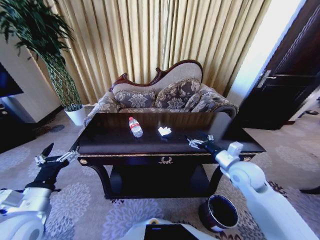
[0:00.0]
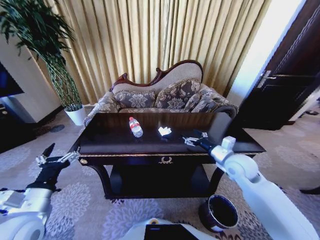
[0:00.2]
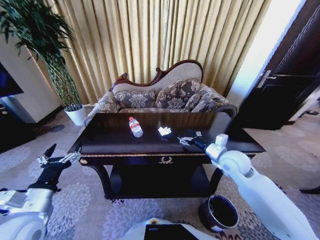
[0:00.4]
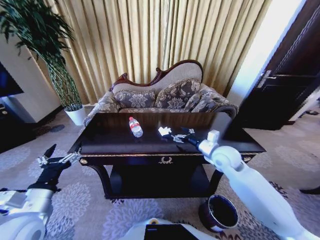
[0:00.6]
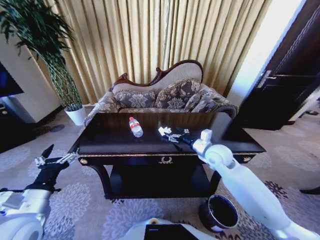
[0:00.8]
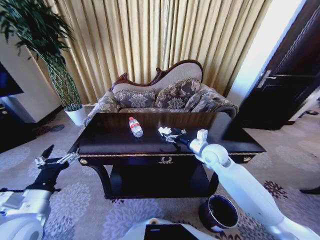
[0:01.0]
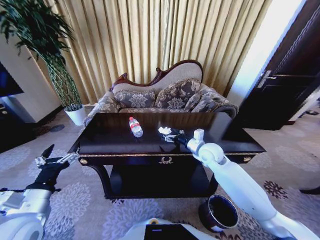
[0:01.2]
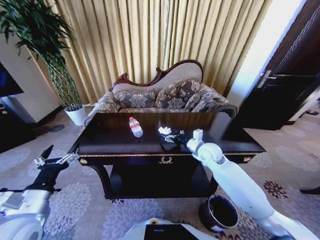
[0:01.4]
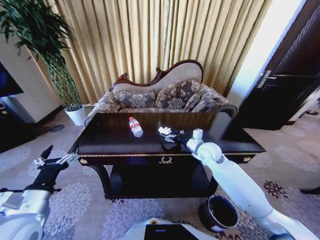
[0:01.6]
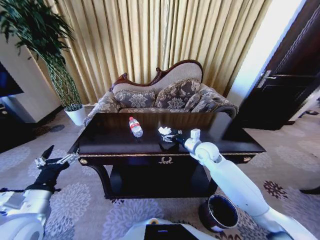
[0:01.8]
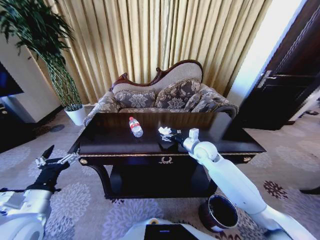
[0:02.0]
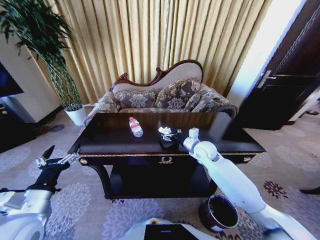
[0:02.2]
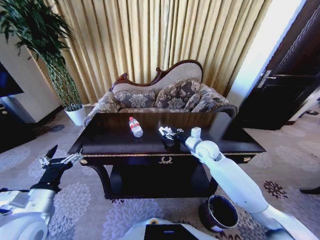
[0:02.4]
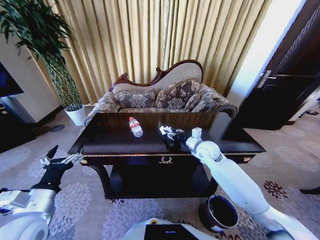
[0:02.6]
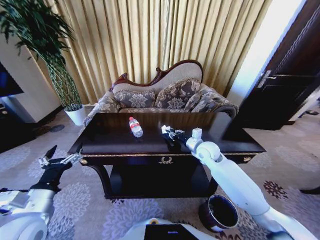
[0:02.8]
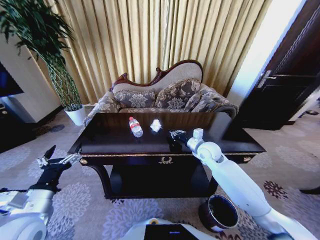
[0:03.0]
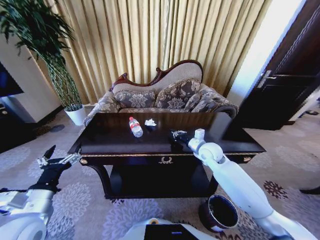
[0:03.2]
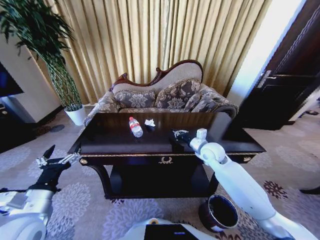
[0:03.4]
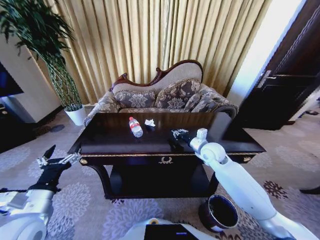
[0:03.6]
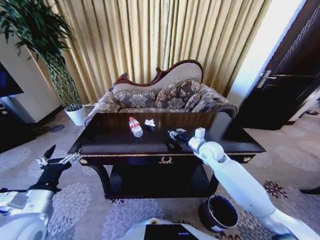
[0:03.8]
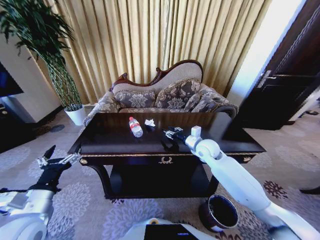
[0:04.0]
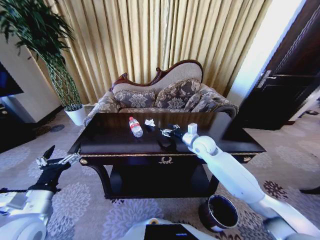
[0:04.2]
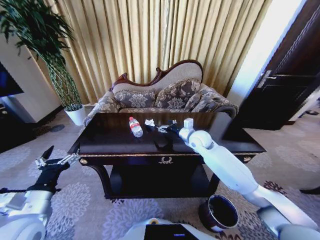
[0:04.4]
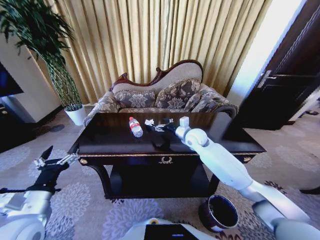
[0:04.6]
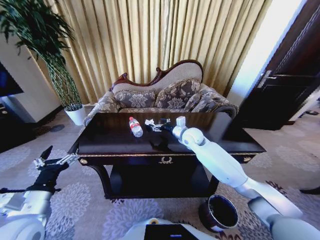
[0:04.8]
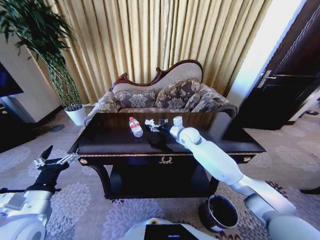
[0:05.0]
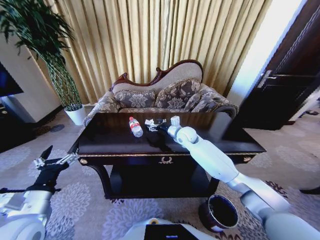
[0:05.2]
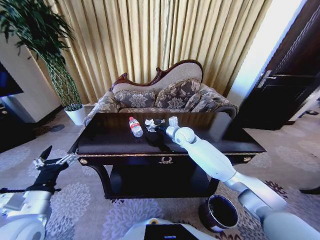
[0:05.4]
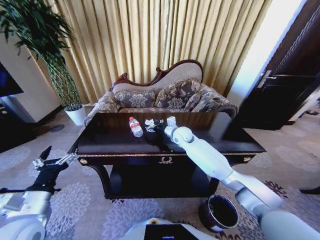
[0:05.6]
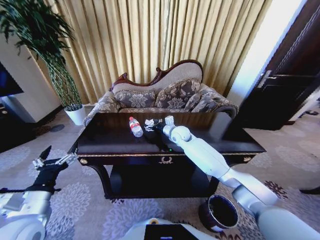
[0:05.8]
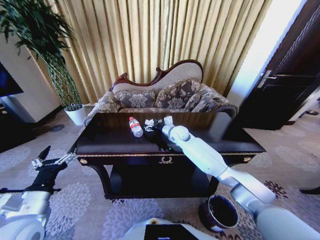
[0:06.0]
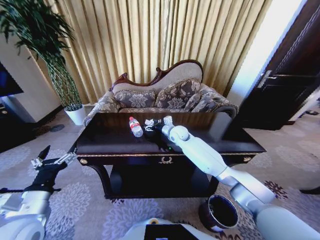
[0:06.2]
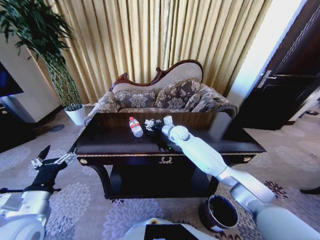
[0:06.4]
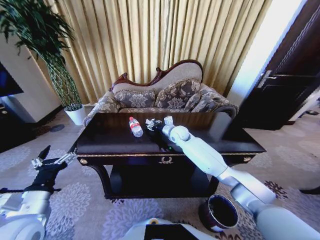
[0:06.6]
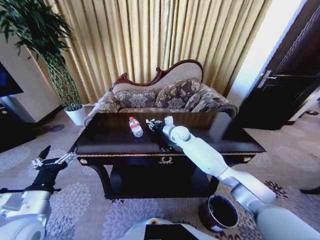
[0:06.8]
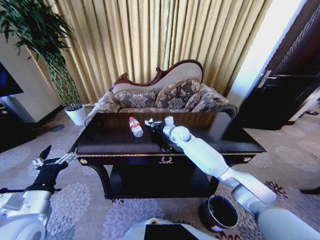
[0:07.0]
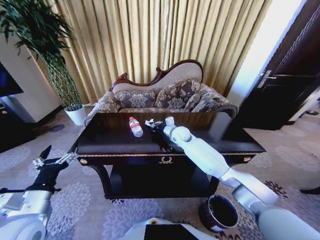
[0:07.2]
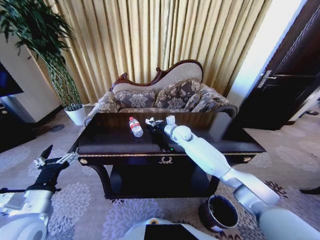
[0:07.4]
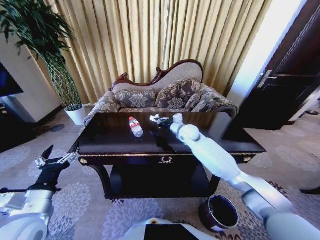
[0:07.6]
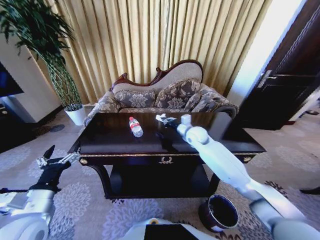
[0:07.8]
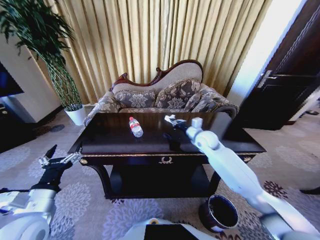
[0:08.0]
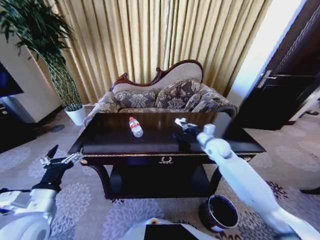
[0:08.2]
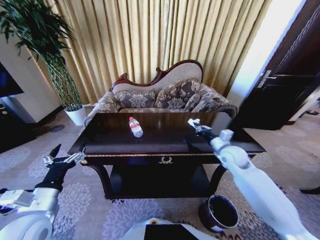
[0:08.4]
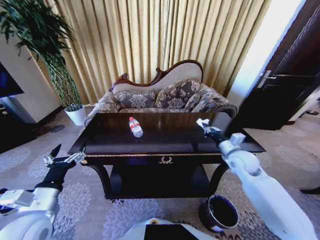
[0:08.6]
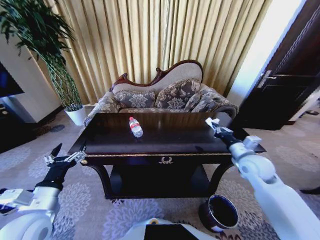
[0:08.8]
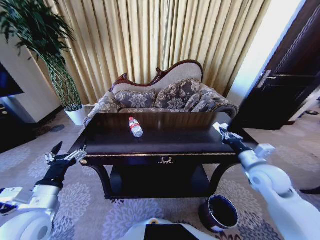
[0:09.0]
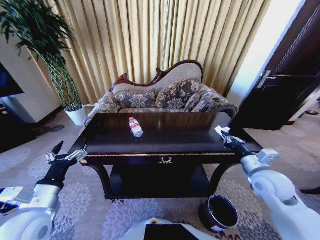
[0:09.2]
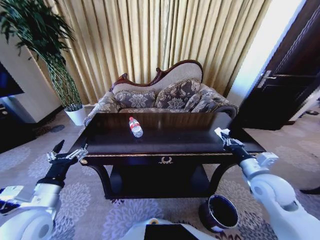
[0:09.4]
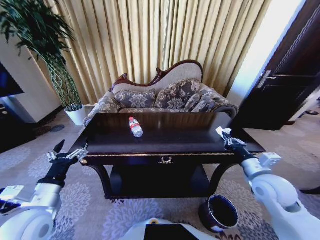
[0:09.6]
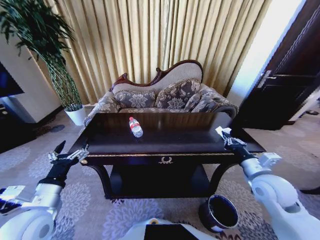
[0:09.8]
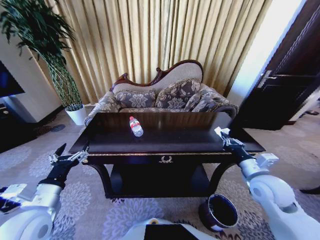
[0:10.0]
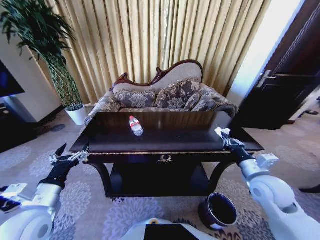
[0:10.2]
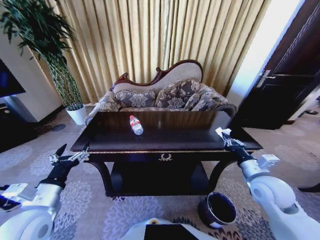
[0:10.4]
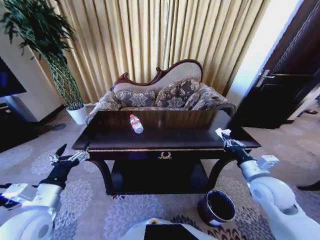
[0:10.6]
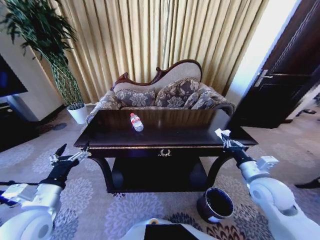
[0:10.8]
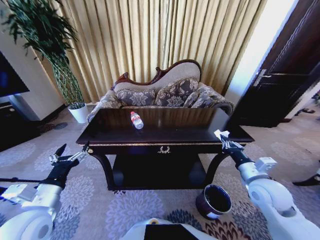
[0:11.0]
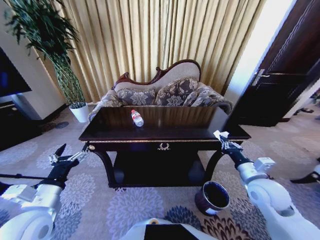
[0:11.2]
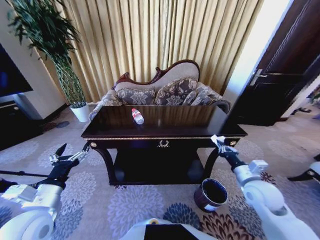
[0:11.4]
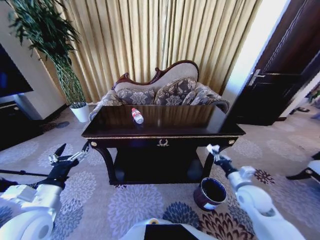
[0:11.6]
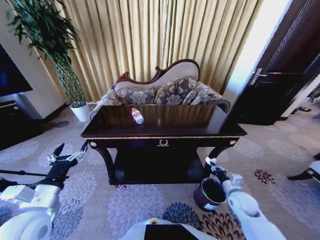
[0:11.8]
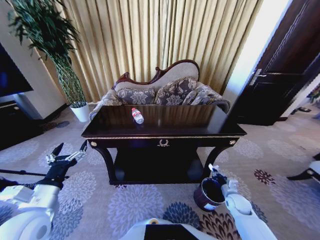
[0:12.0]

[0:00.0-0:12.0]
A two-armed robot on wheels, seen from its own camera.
Task of the whole recording: Move to the front of the table and place the trash on the table into the trash bin.
0:00.0 to 0:01.6: The right gripper goes about 15 cm forward and to the left.
0:01.6 to 0:03.0: The right gripper closes up.
0:03.0 to 0:04.4: The right gripper goes about 5 cm forward, and opens up.
0:04.4 to 0:06.0: The right gripper shifts some 10 cm to the left and forward.
0:06.0 to 0:07.6: The right gripper closes its fingers.
0:07.6 to 0:09.0: The right gripper is displaced backward and to the right by approximately 30 cm.
0:09.0 to 0:10.4: There are only small adjustments of the grippers.
0:10.4 to 0:12.0: The right gripper moves downward, approximately 25 cm.

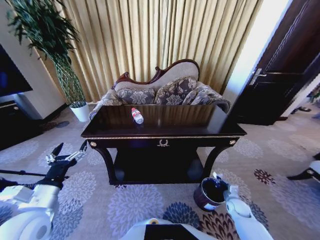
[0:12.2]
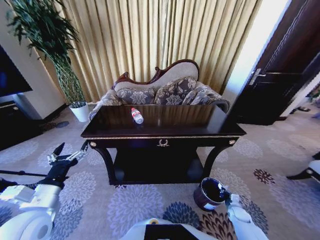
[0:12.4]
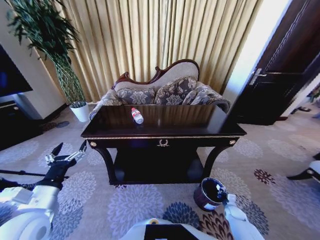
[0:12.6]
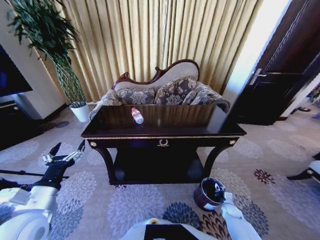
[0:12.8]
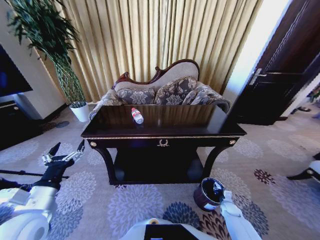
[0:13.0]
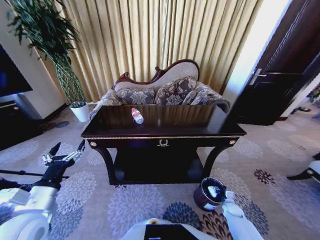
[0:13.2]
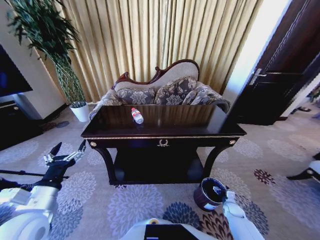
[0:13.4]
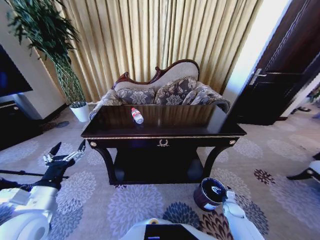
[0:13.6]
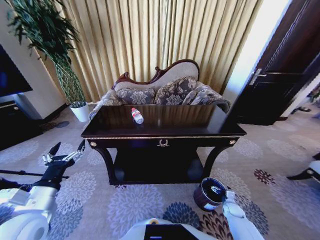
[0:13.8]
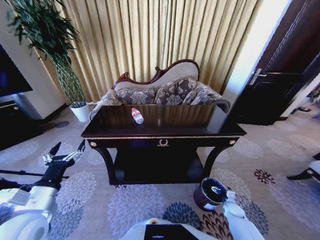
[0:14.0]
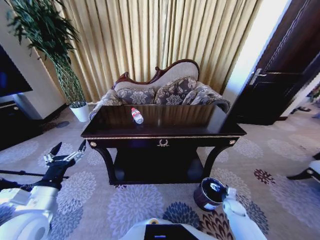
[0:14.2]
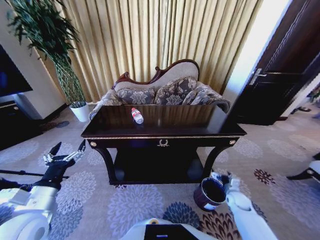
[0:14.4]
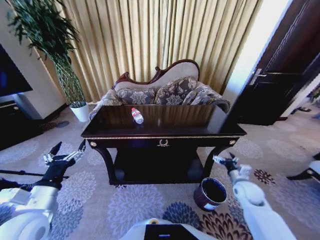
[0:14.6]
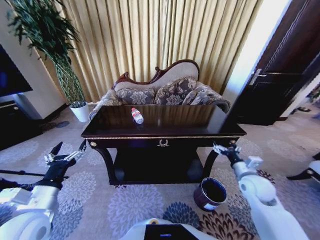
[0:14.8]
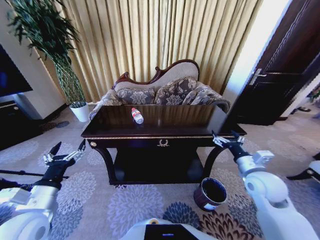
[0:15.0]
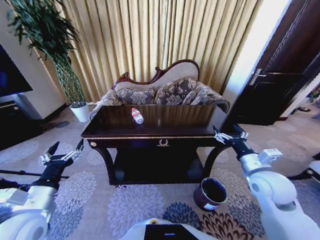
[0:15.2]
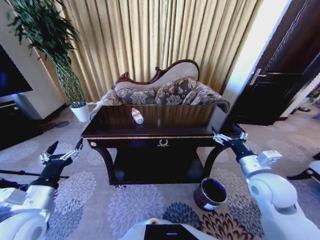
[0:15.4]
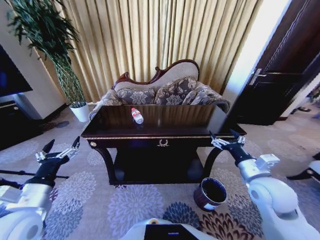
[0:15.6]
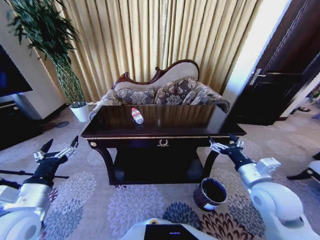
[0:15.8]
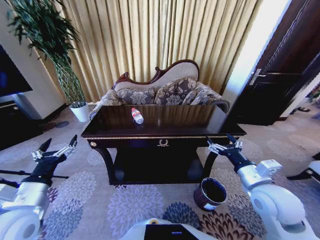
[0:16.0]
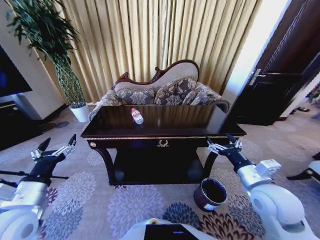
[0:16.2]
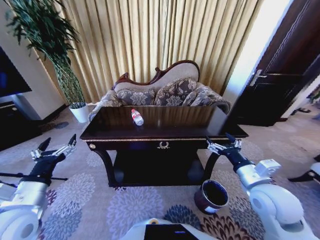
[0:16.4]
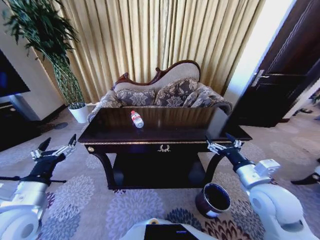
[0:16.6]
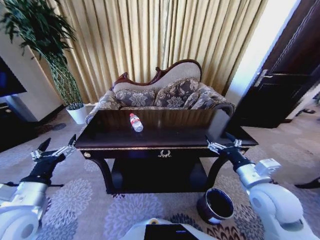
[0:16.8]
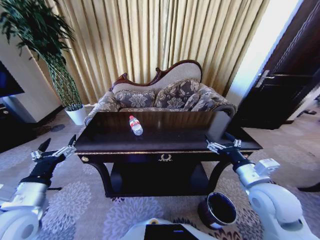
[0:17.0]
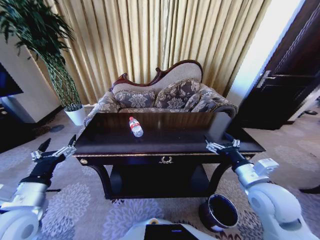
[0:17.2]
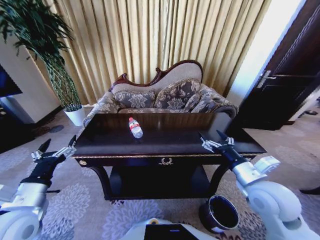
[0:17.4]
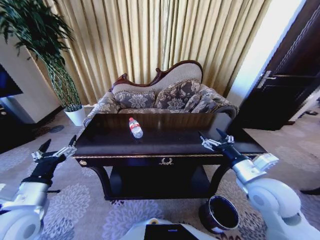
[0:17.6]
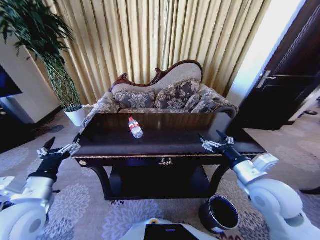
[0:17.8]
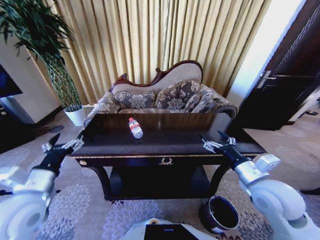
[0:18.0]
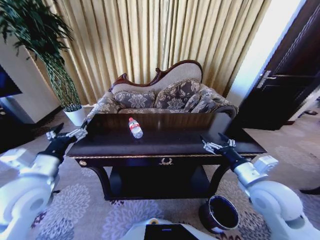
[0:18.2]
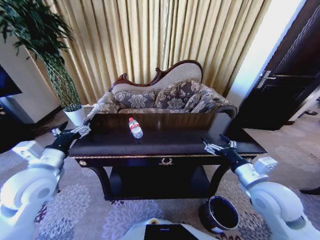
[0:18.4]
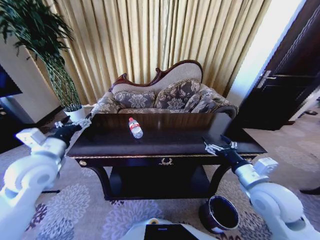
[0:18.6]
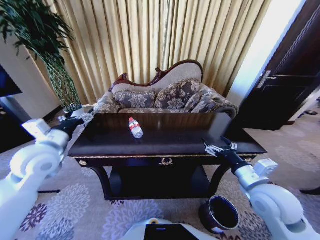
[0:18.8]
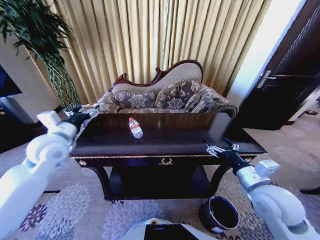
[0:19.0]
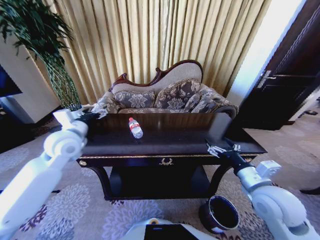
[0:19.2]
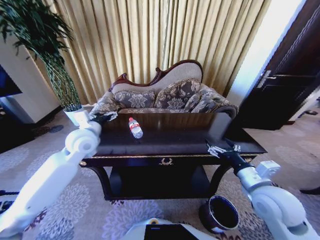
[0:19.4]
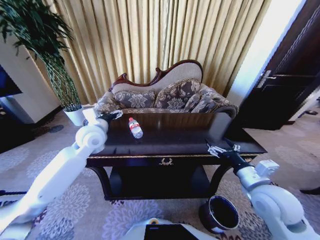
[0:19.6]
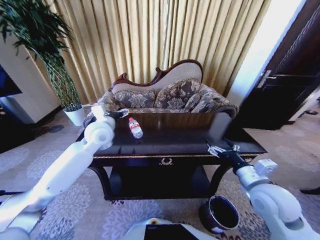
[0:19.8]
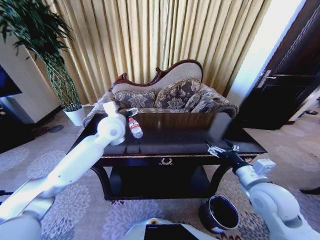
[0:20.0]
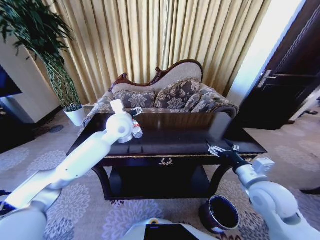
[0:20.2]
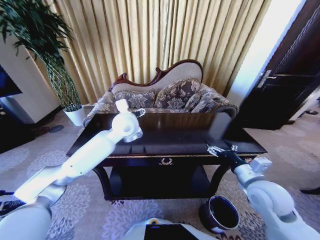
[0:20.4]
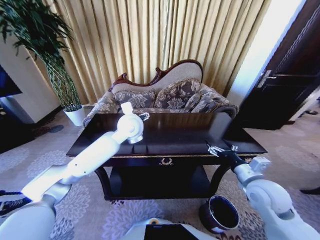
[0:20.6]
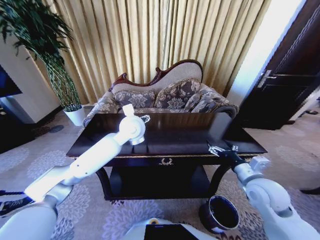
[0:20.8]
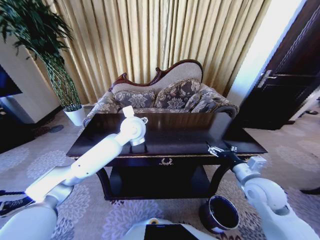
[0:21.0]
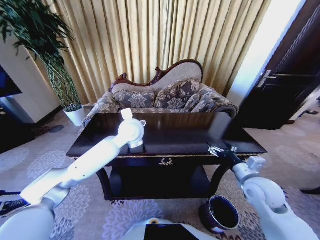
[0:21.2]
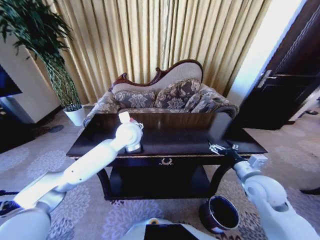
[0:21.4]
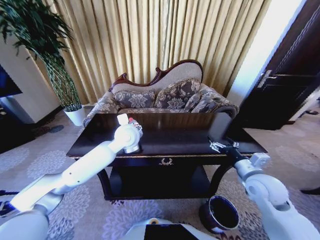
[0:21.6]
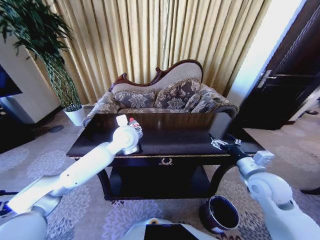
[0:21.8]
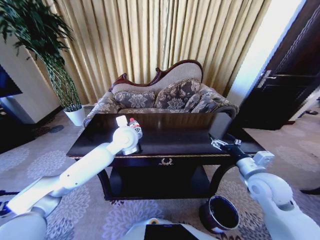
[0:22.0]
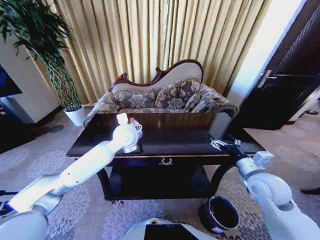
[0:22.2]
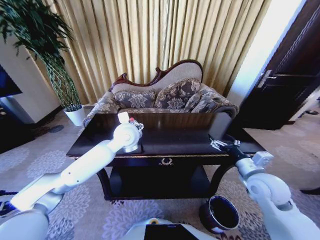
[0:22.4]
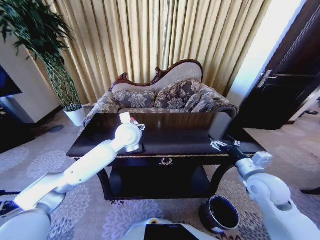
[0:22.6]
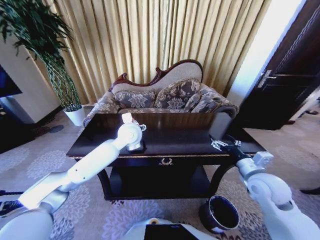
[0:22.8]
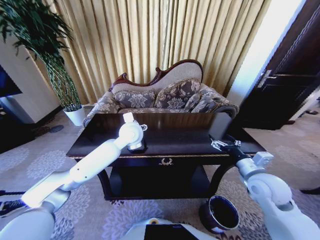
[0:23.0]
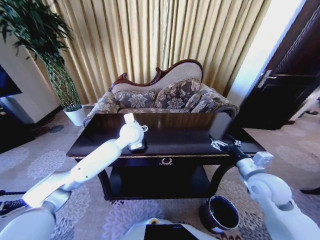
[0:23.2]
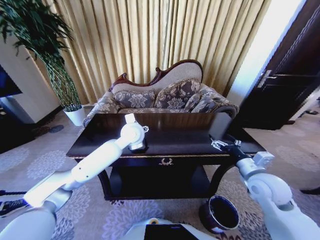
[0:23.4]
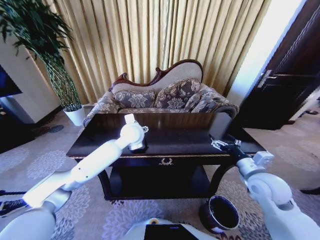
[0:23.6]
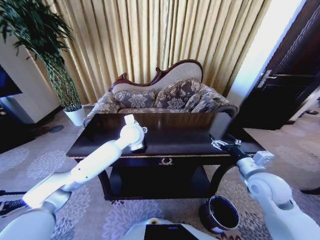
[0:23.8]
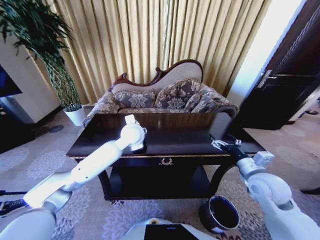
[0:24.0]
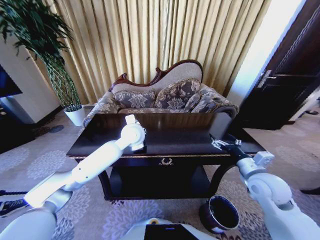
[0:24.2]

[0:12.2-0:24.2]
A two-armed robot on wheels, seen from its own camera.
Task of the whole recording: Move to the front of the table and place the trash on the table into the trash bin.
0:12.2 to 0:13.8: The right gripper heads downward, covering approximately 5 cm, and opens its fingers.
0:13.8 to 0:15.2: The right gripper is displaced upward by approximately 40 cm.
0:16.6 to 0:18.2: The left gripper goes roughly 5 cm forward.
0:18.2 to 0:19.8: The left gripper moves forward and to the right, roughly 25 cm.
0:19.8 to 0:21.2: The left gripper goes some 10 cm to the right, while the right gripper shifts by roughly 5 cm.
0:21.2 to 0:22.6: The grippers make only small movements.
0:22.6 to 0:24.2: The left gripper closes.
